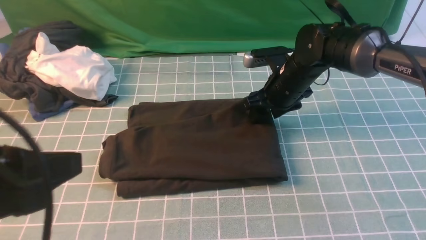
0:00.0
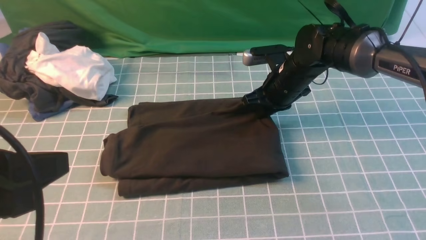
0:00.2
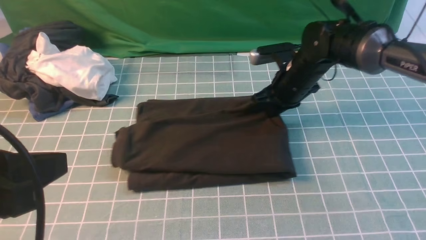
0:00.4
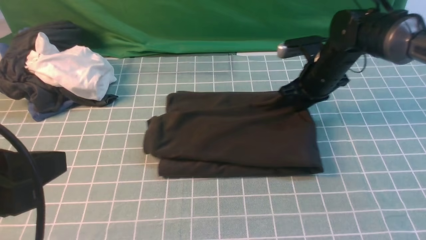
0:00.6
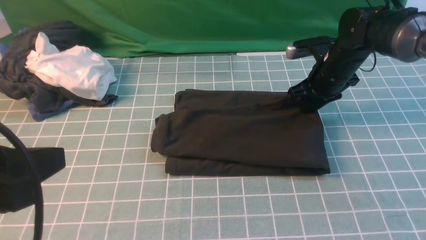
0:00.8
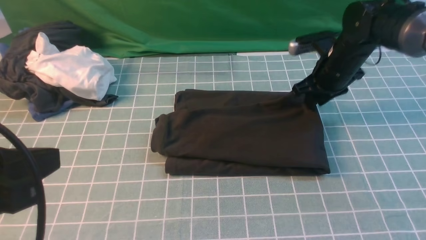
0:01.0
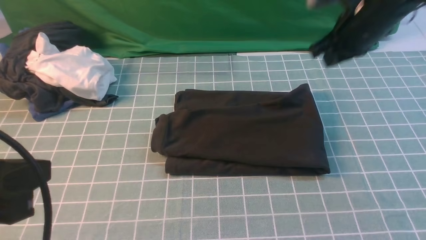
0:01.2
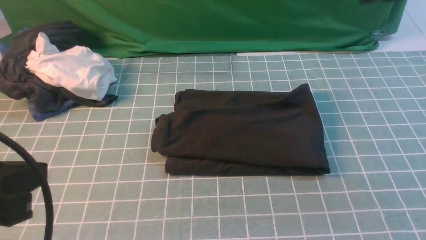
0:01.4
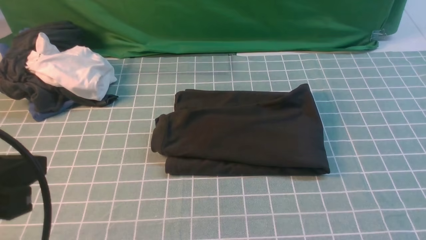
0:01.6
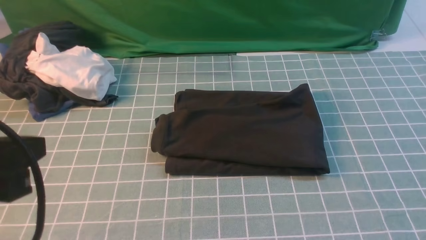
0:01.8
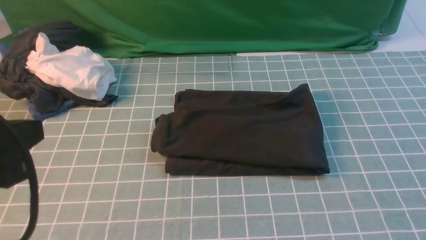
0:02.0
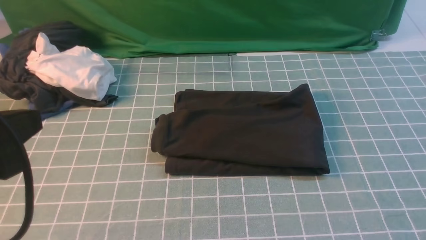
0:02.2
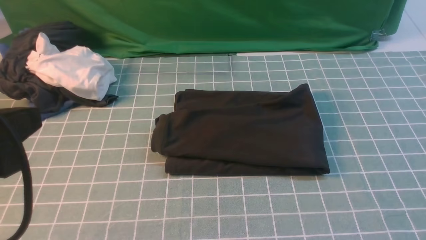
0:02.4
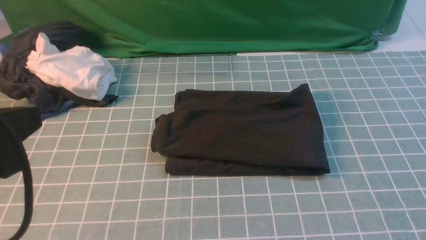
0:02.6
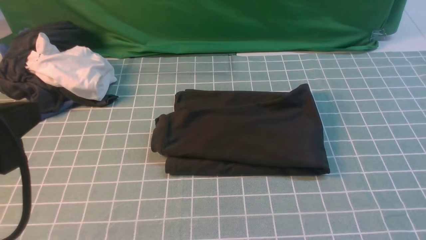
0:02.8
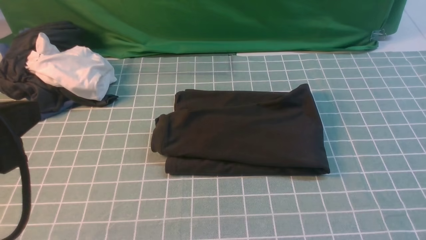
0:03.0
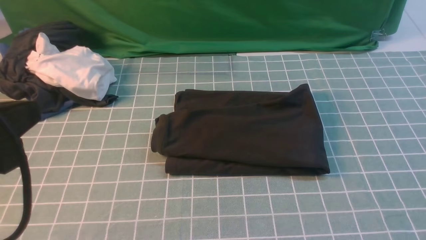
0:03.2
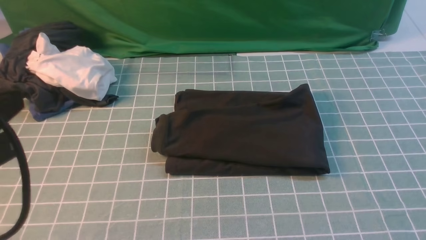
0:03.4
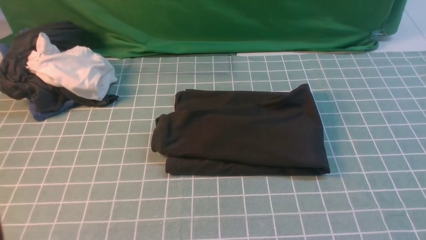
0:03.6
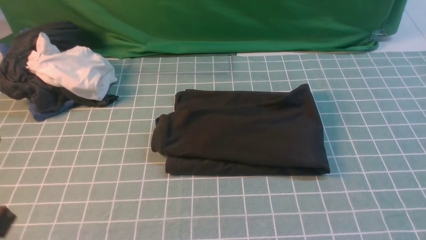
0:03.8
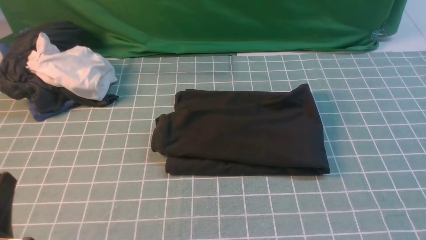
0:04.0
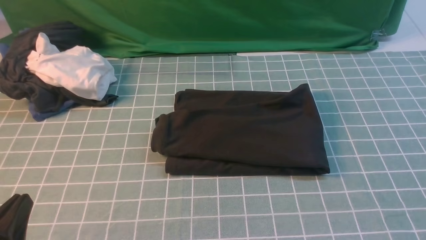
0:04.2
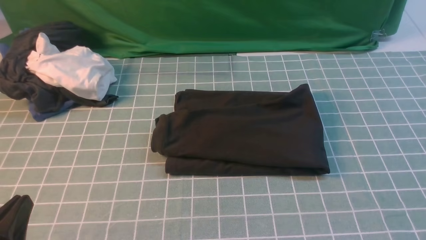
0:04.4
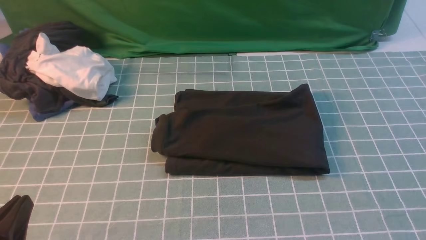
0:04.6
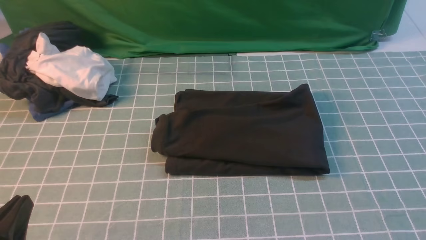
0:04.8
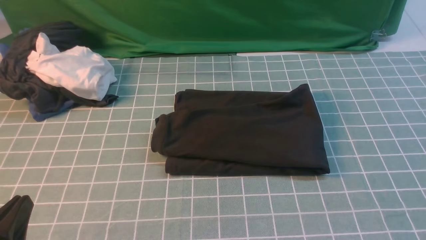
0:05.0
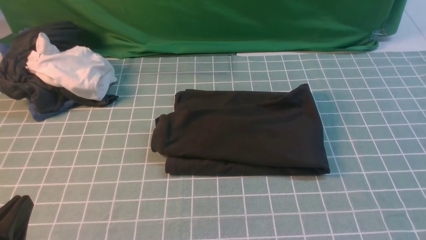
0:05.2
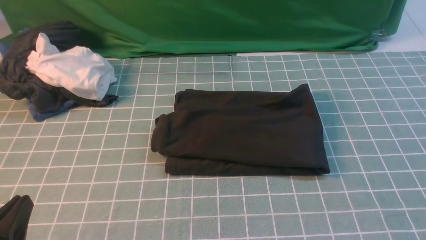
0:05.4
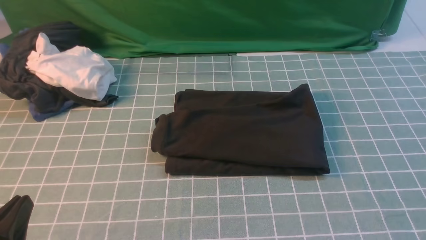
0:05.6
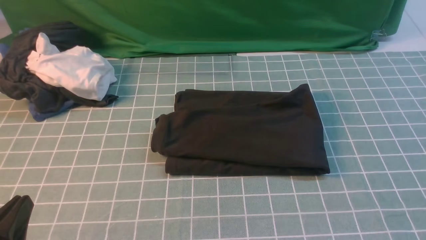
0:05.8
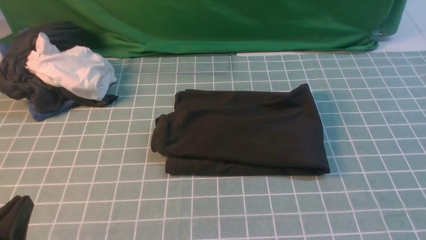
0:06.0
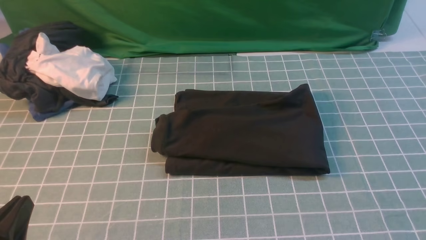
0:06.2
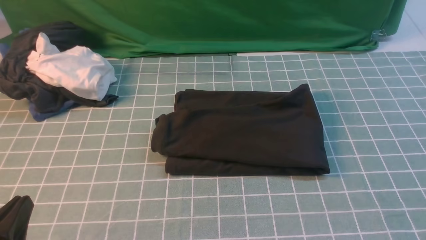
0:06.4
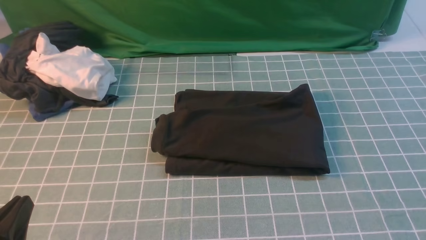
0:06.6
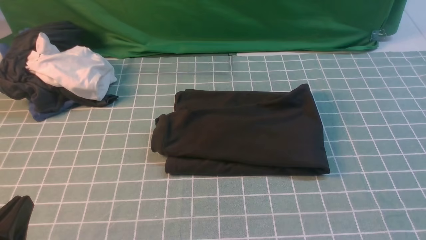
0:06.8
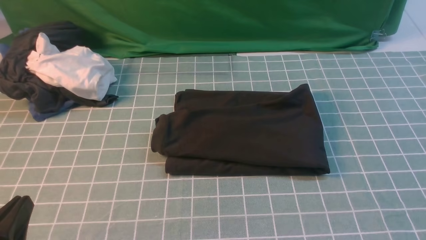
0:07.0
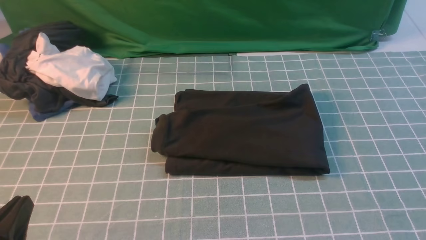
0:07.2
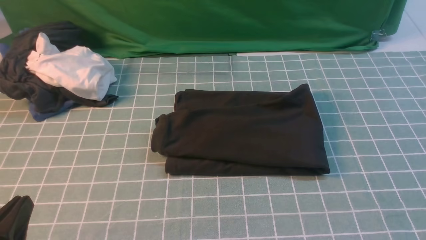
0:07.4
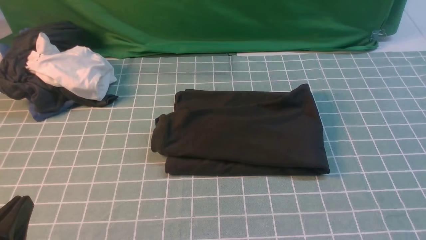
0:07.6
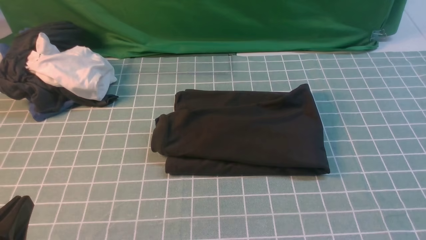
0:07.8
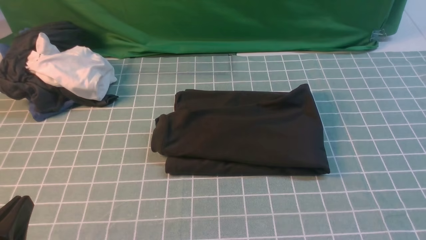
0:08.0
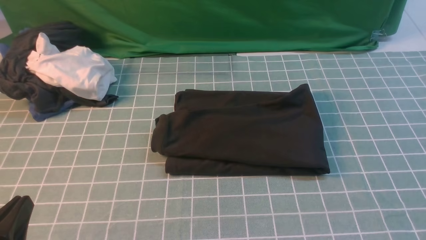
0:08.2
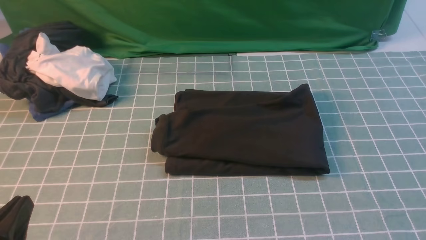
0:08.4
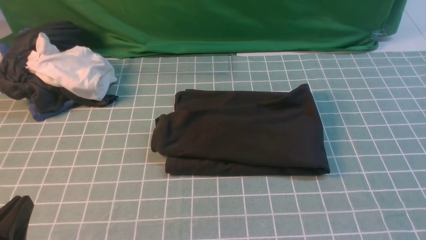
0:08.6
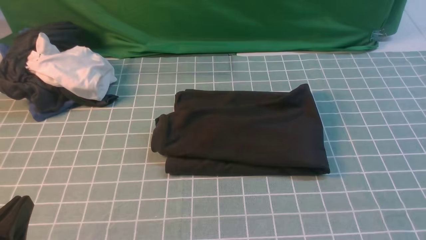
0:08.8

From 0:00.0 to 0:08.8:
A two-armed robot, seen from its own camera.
From 0:00.0 to 0:01.4: The right gripper is displaced upward, to the right and backward by about 30 cm, and closes its fingers.
From 0:03.0 to 0:04.4: The left gripper travels downward by roughly 20 cm.
From 0:07.4 to 0:08.8: Neither gripper changes place.

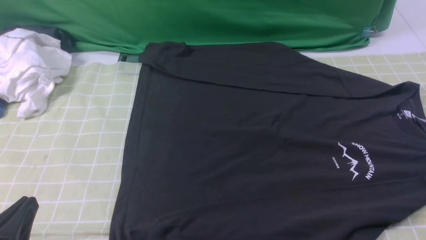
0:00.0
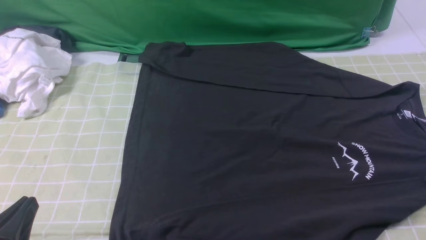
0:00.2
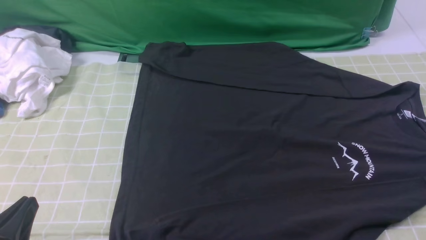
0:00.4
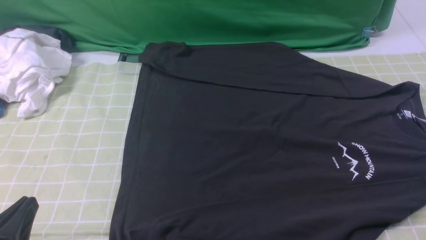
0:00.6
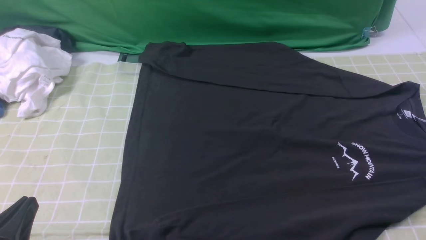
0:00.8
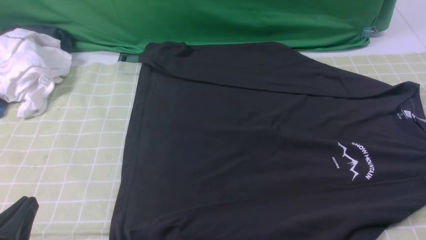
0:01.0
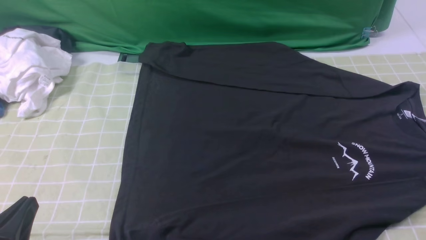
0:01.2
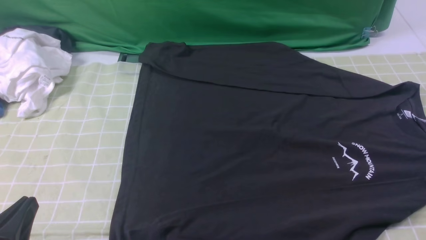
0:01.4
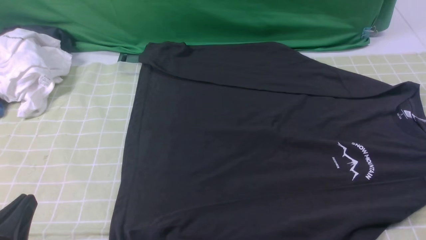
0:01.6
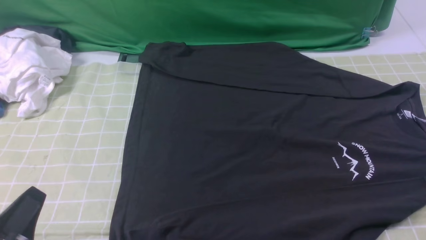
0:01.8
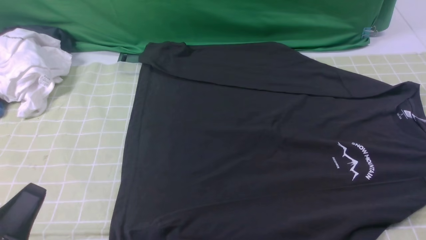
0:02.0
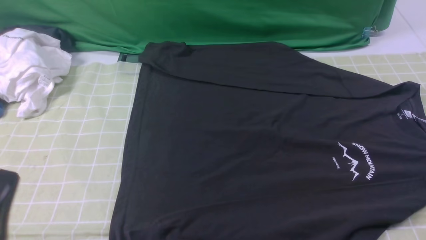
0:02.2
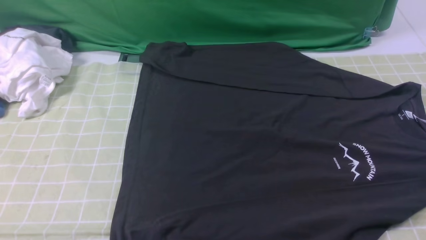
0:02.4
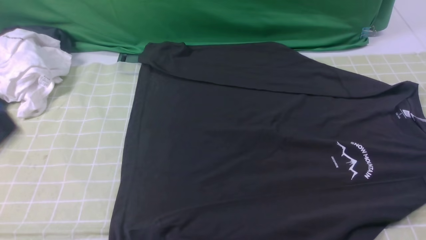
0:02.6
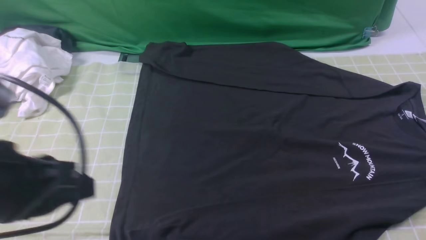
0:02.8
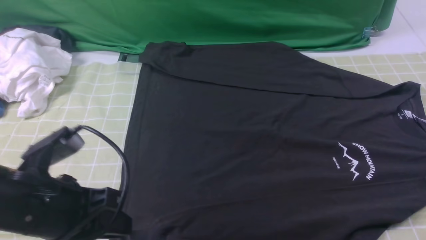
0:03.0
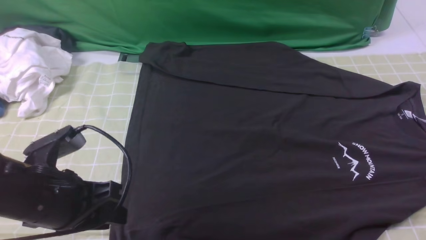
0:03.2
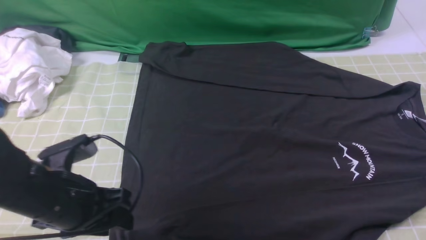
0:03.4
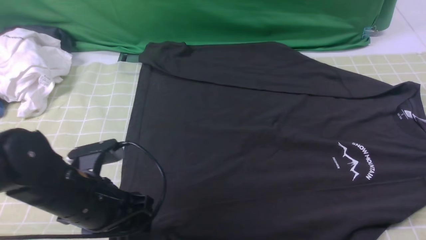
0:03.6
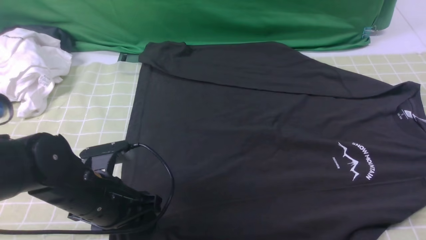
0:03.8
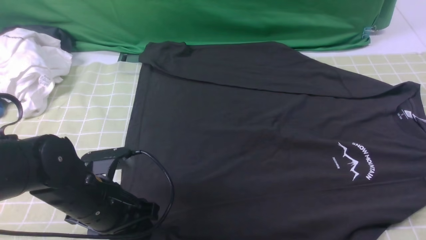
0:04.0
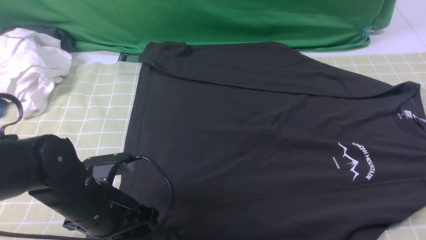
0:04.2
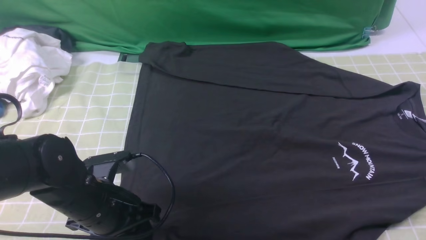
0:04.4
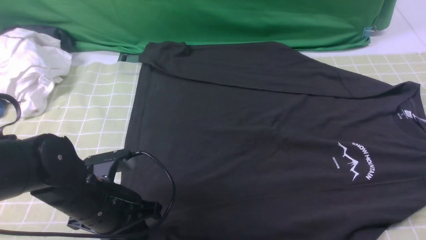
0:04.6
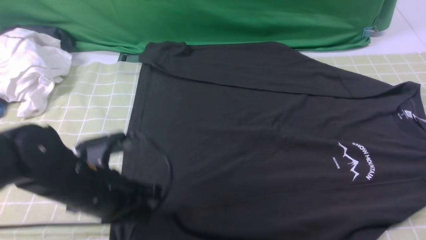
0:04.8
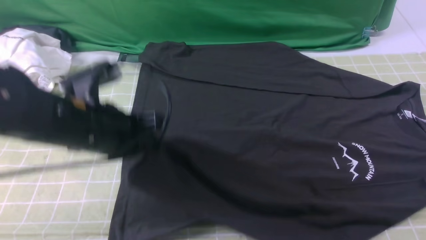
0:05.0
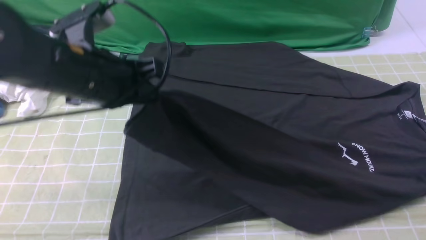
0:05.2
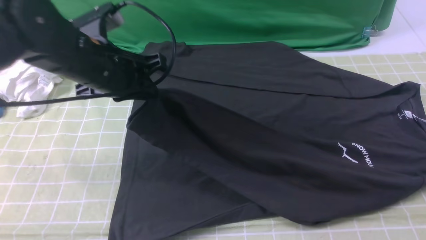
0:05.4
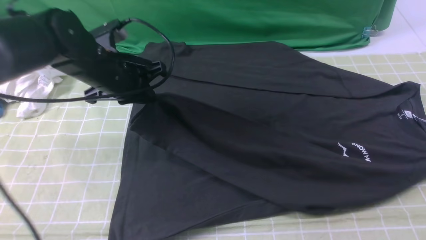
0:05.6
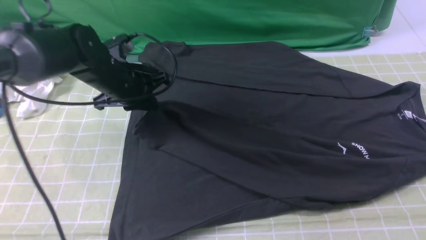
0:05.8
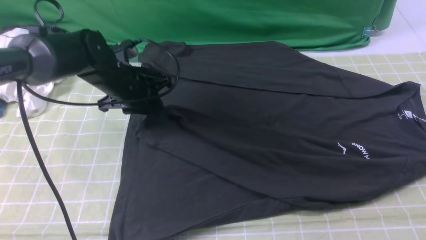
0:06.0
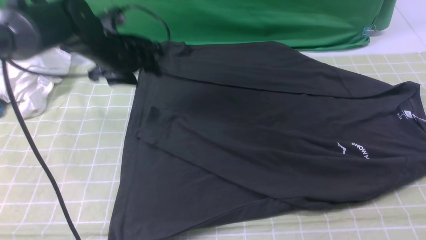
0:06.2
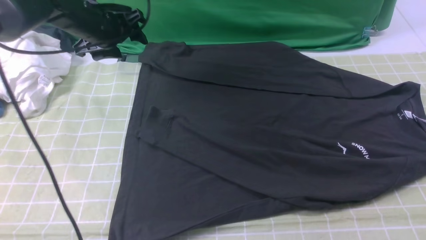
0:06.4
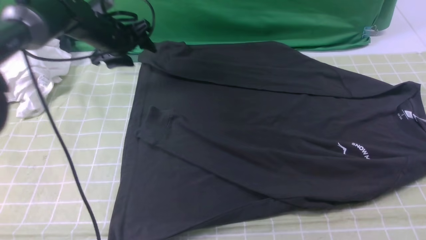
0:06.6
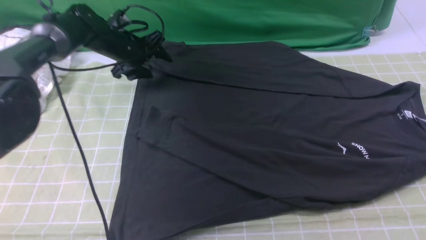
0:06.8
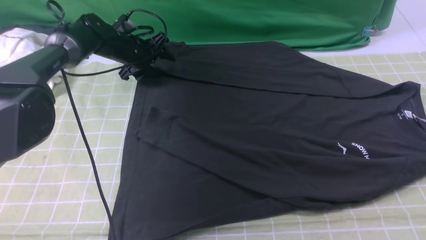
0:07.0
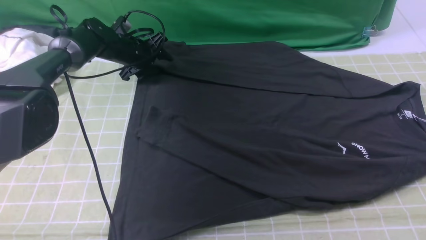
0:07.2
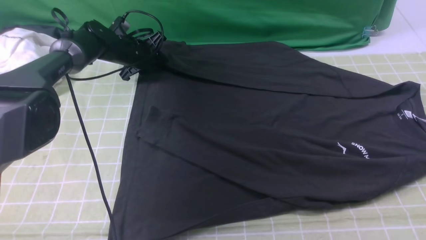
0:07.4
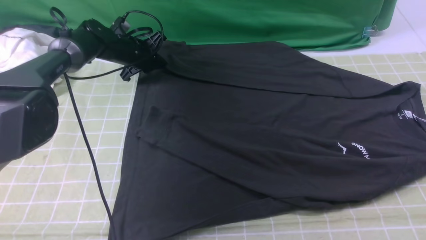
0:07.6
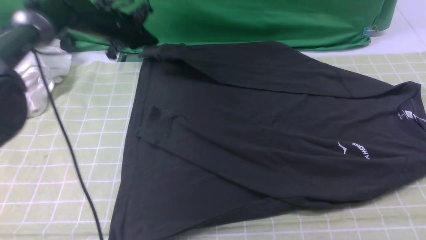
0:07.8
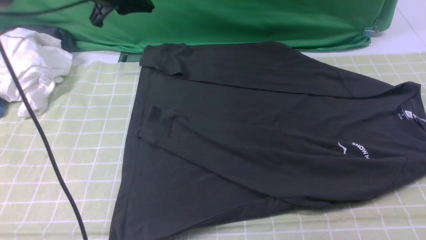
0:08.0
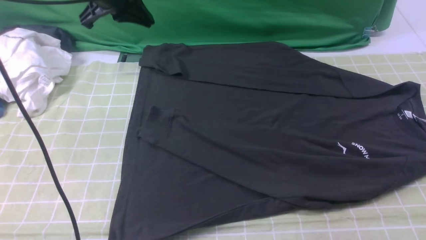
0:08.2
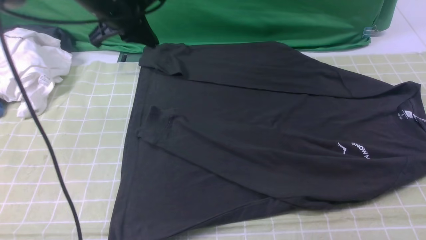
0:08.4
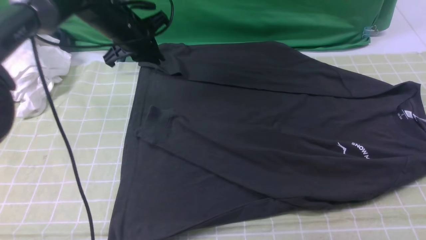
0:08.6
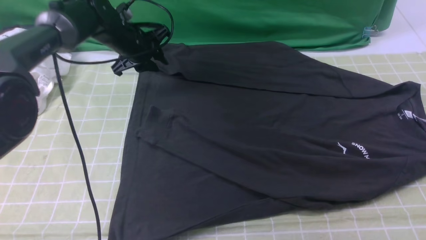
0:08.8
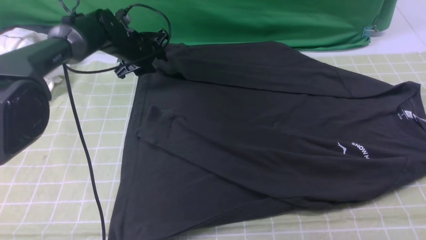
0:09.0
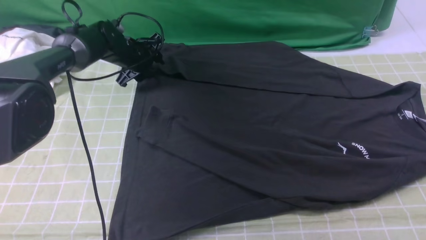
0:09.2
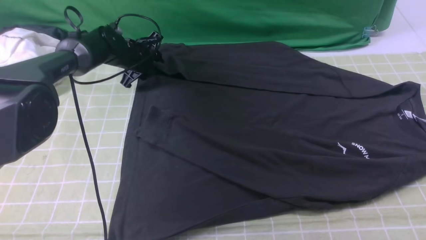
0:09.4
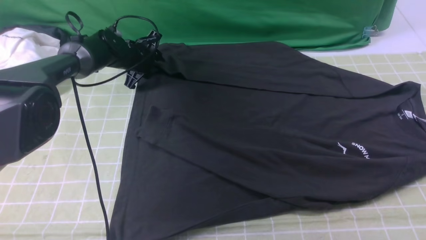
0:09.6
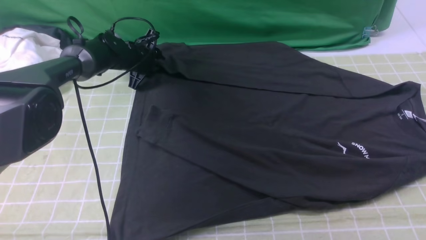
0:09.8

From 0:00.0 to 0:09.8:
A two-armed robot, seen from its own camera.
Step, from 0:00.0 to 0:04.6: use the left arm to clamp the cuff closest to it.
Step, from 0:04.8 to 0:06.0: use the left arm to drag and place the cuff at the centered position on the left edge of the fabric.
Step, from 0:06.4 to 0:07.6: use the left arm to clamp the cuff farthest from it.
From 0:00.0 to 0:01.4: The two grippers keep their place.
From 0:01.4 to 0:02.8: The left gripper heads upward and forward, covering roughly 15 cm.
From 0:02.8 to 0:04.2: The left gripper moves downward and forward, approximately 15 cm, and opens. The right gripper heads forward, covering approximately 5 cm.
From 0:04.2 to 0:05.6: The left gripper is displaced forward and upward by roughly 20 cm, and closes up.
From 0:05.6 to 0:07.0: The left gripper is displaced forward and downward by about 20 cm, and opens.
From 0:07.0 to 0:08.4: The left gripper heads upward and backward, covering some 15 cm, and closes up.
From 0:08.4 to 0:09.8: The left gripper goes roughly 20 cm downward and forward.
